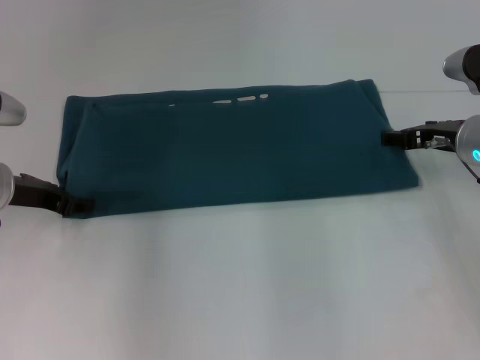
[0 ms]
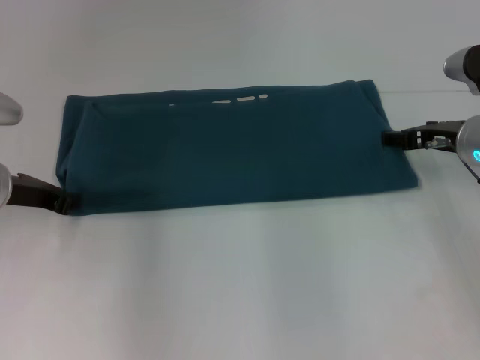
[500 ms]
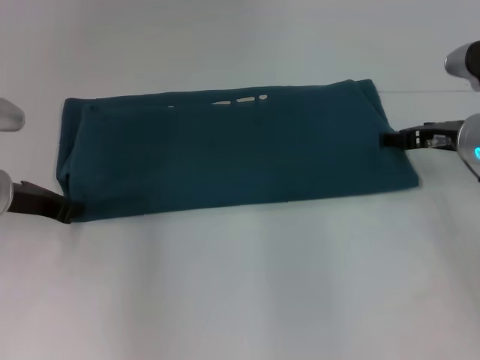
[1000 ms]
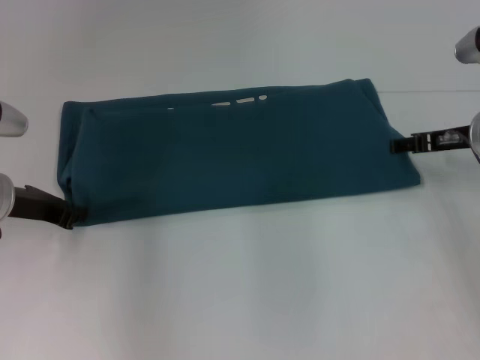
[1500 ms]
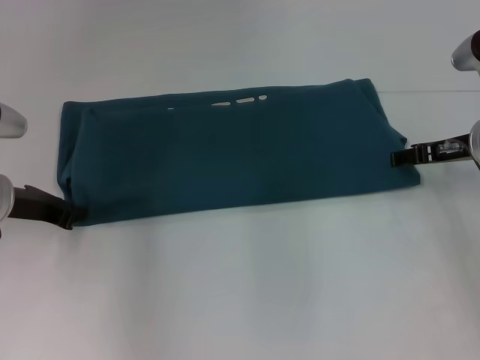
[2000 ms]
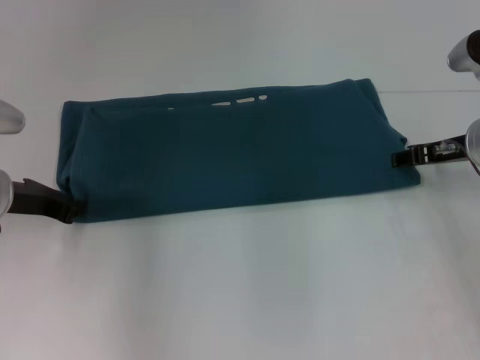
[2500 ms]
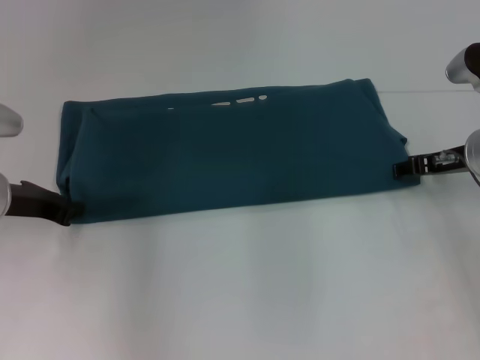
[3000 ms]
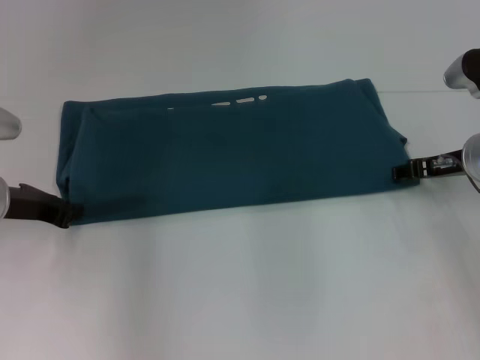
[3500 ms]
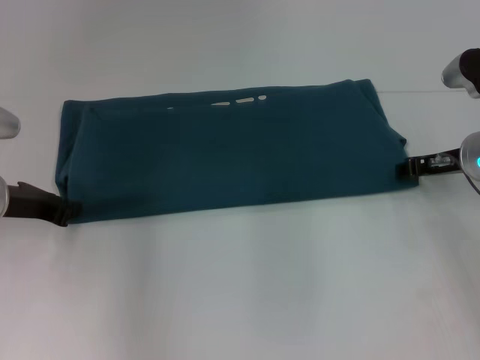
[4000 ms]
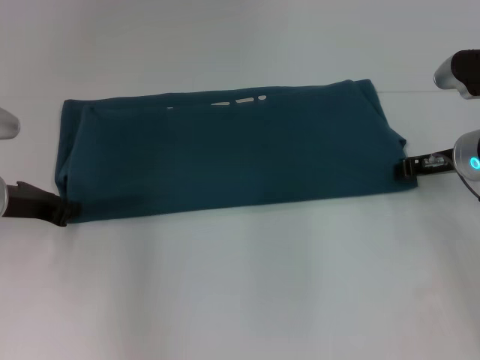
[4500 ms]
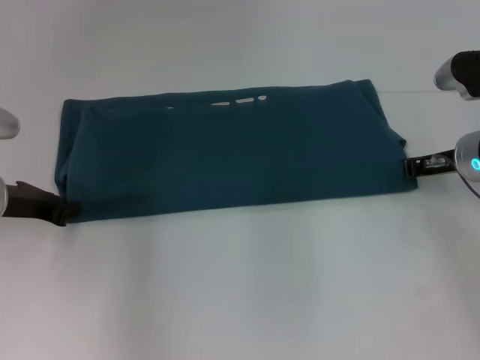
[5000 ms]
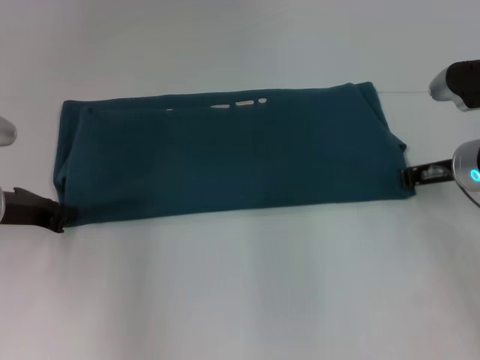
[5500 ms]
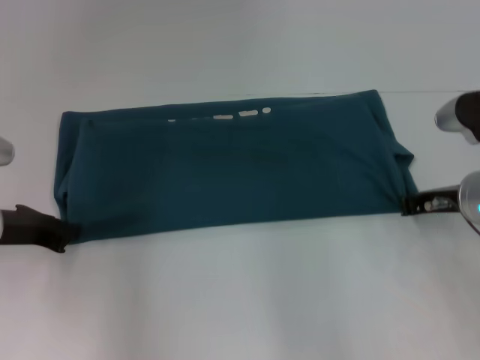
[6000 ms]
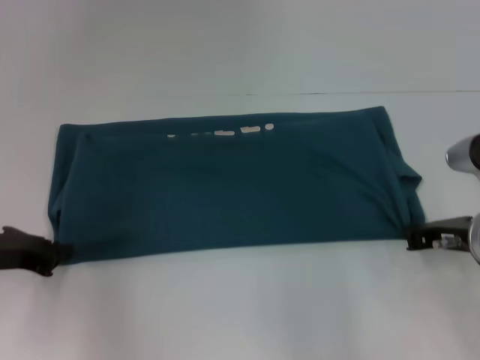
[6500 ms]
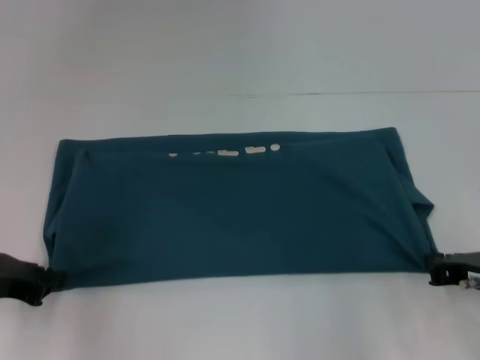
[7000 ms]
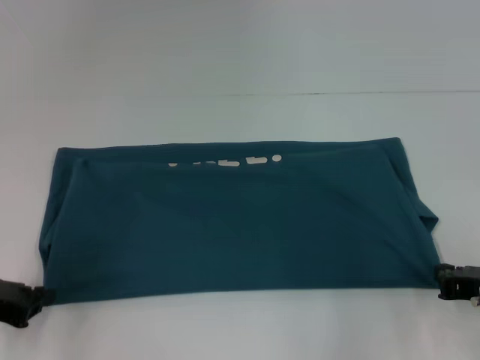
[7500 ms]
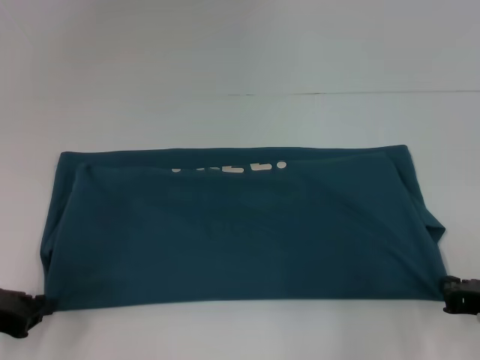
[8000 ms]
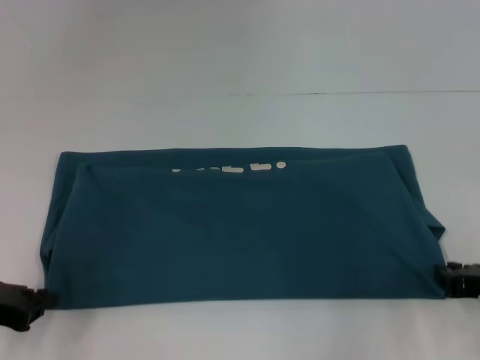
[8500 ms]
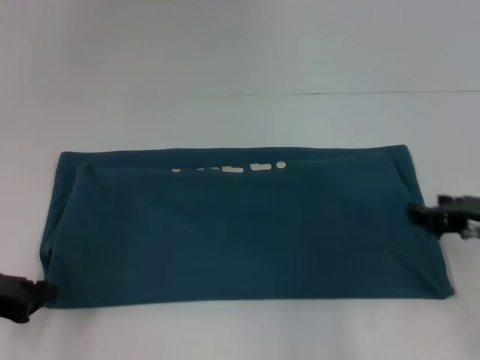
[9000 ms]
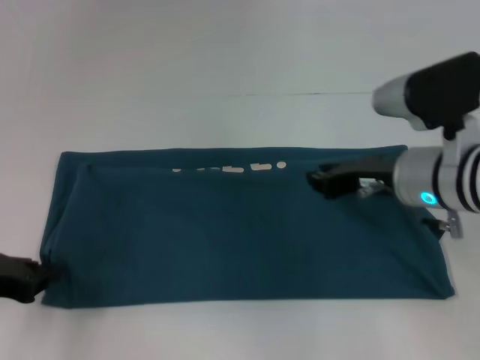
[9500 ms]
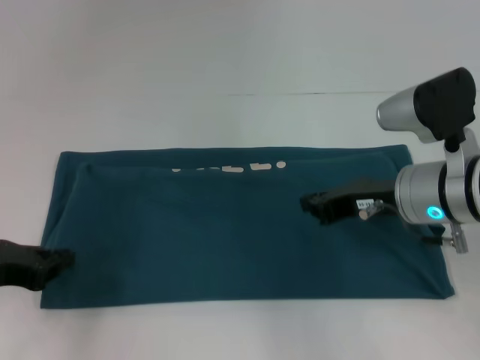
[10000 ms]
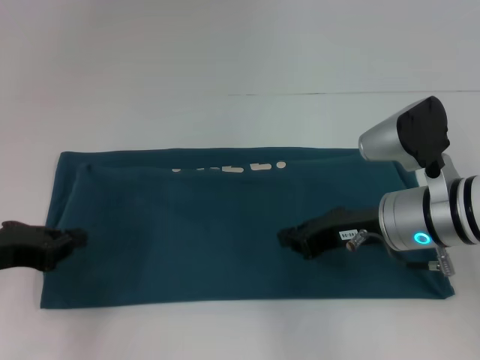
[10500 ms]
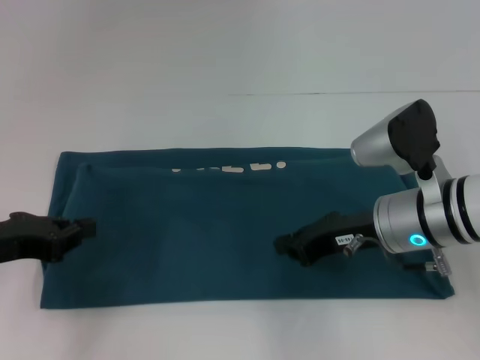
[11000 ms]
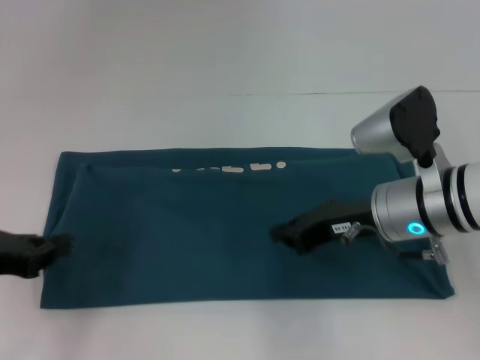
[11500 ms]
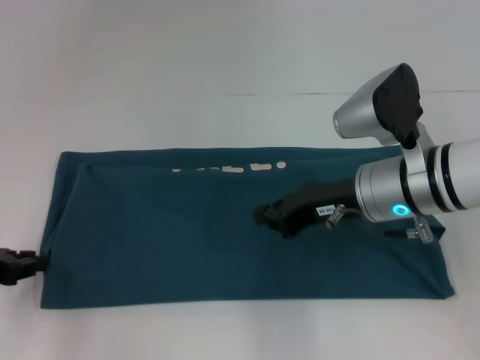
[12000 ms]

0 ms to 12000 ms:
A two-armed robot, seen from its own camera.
Step, 0 ms to 8500 ms: Pull the clothes with your left hand.
Step, 0 ms to 8500 ms: Pull the clothes with your right hand.
0 ms to 2000 ms: The left gripper closes its fingers.
2000 ms to 4000 ms: The grippers move only a little.
4000 ms to 6000 ms: The right gripper ends up some 5 cm from where it was, and closes up.
6000 ms to 8000 ms: The grippers both shift backward by roughly 10 cm.
8000 ms to 10000 ms: The right gripper shifts about 15 cm forward and to the left, and opens, then closes once more.
10000 ms to 12000 ms: The grippers stay close to where they were, moving slightly.

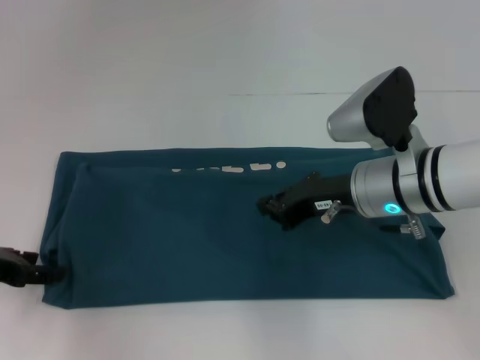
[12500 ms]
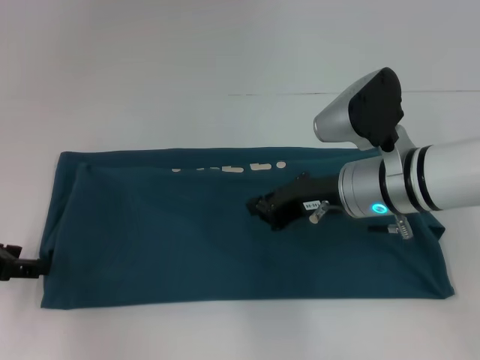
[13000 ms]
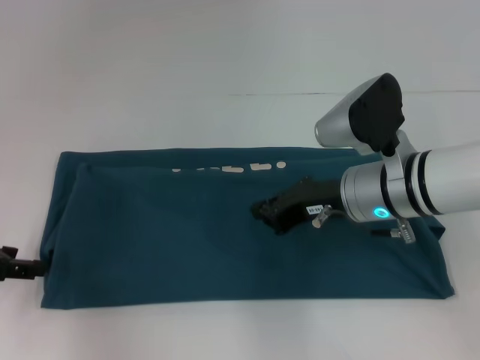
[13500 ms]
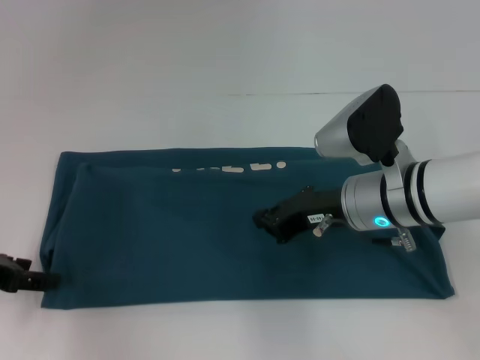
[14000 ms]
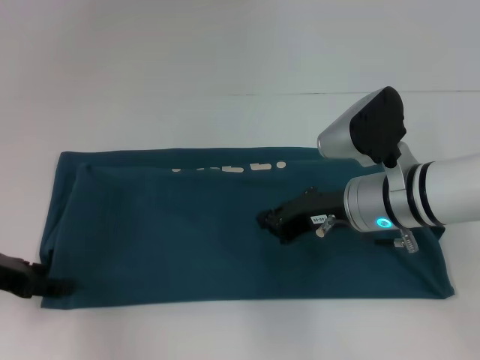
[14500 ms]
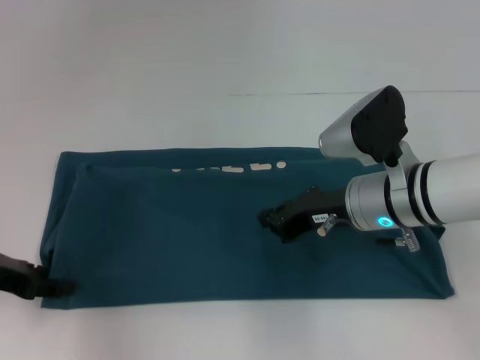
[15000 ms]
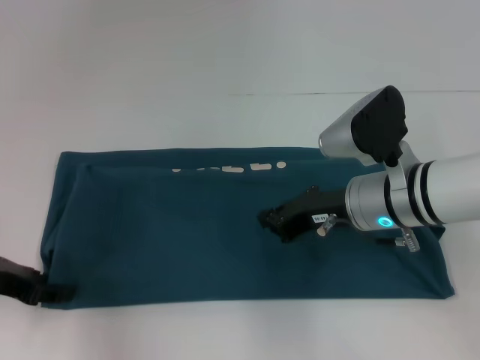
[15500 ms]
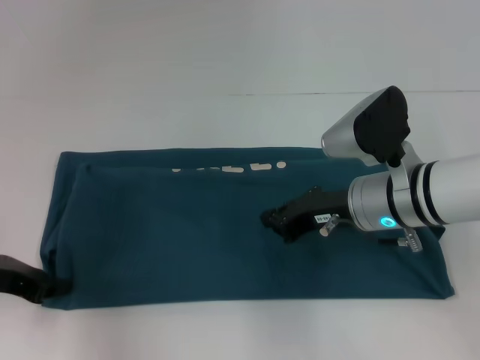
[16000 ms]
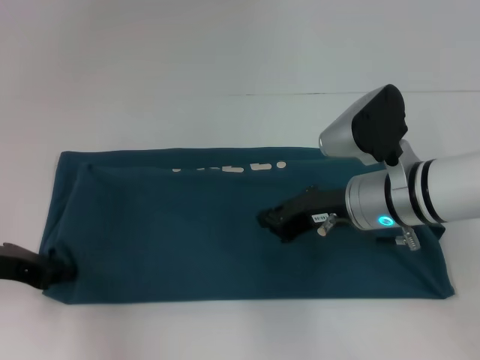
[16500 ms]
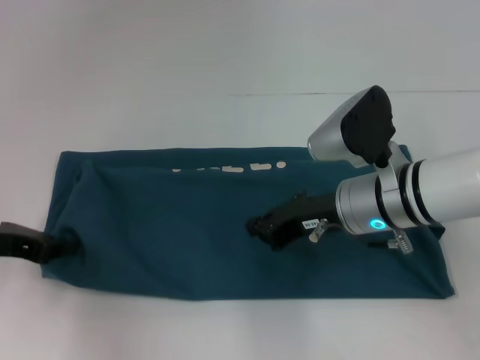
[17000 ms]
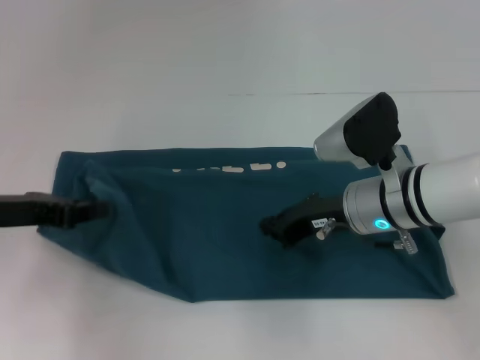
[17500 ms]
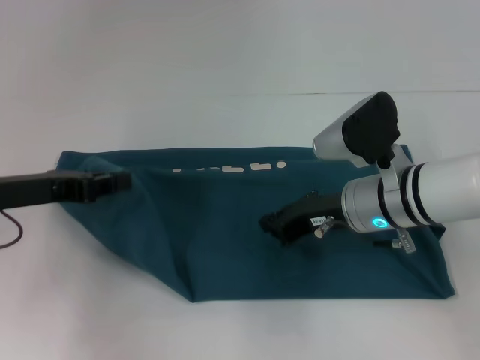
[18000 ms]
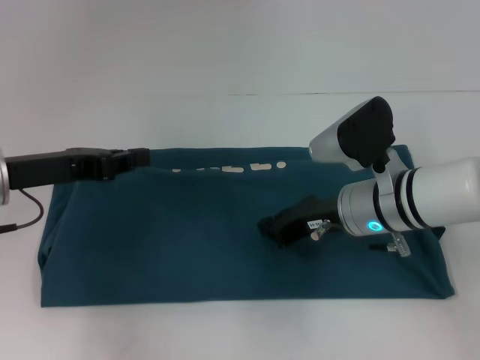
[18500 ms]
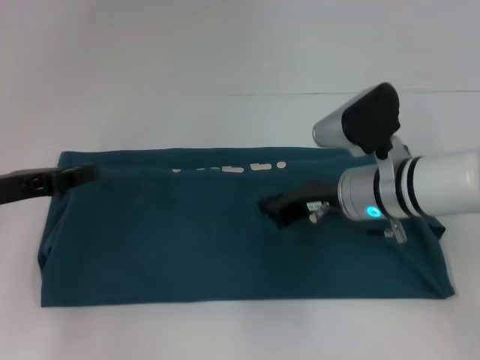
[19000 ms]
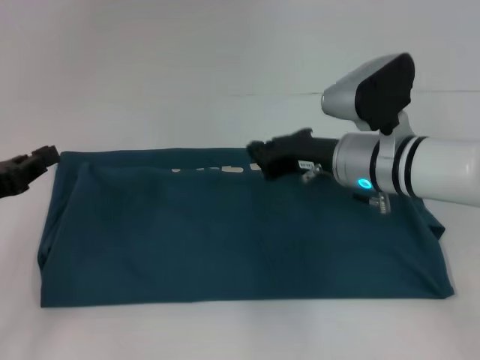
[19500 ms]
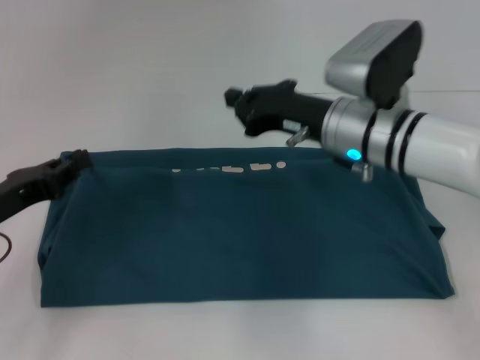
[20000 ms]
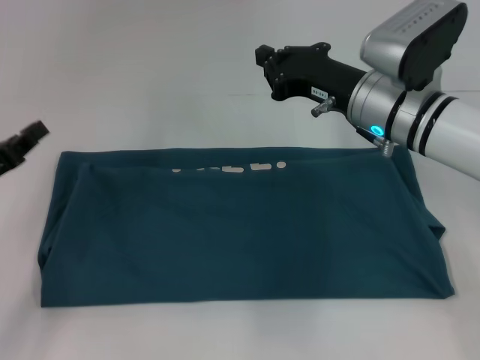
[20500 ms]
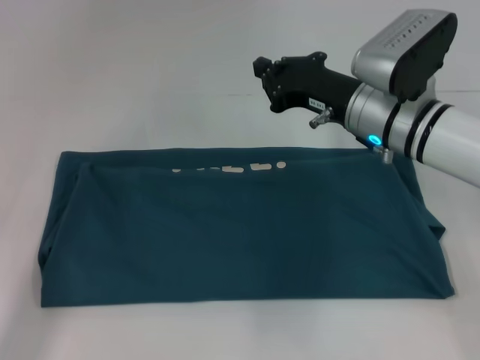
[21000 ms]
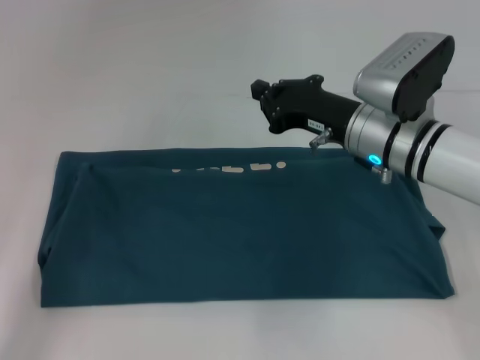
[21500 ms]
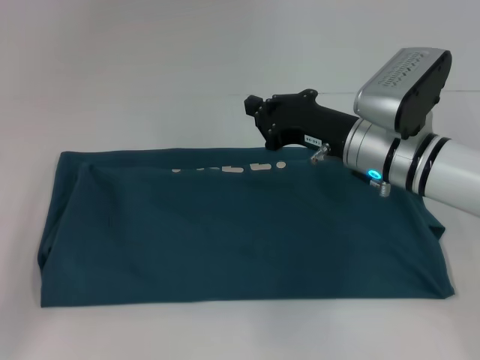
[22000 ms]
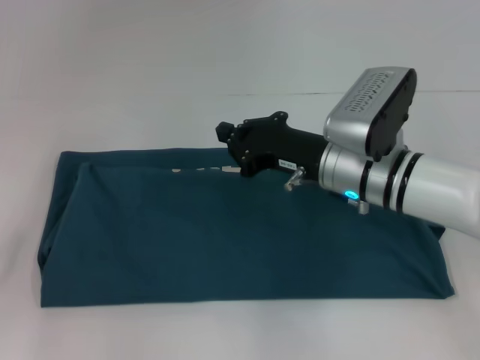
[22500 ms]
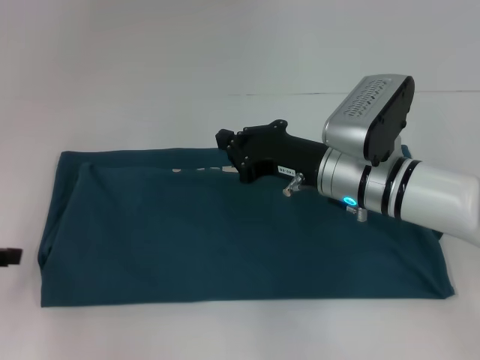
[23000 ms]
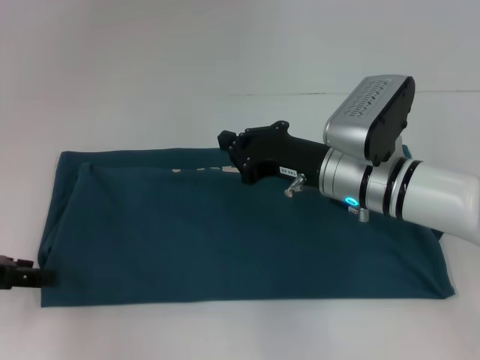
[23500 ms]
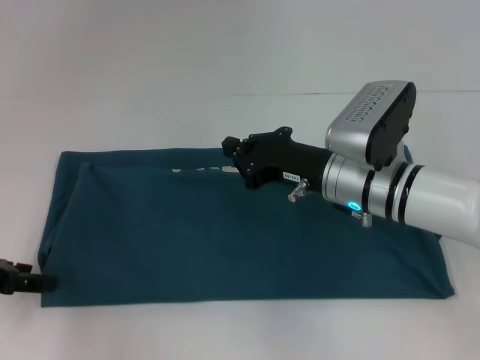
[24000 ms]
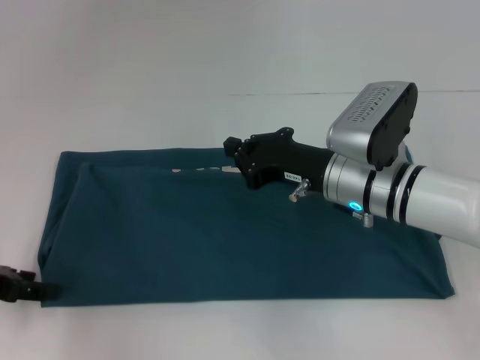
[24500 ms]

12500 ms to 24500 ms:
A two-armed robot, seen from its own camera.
12500 ms to 14500 ms: The grippers stay close to where they were, moving slightly.
14500 ms to 16500 ms: The left gripper closes up.
16500 ms to 18500 ms: The left gripper shifts by some 5 cm.
18500 ms to 20500 ms: The right gripper shifts approximately 5 cm upward. The left gripper moves downward and to the left, approximately 10 cm.
20500 ms to 22500 ms: The right gripper changes place by approximately 5 cm; the left gripper shifts roughly 10 cm to the left and upward.
22500 ms to 24500 ms: The left gripper heads to the right, covering some 5 cm, and opens its fingers.

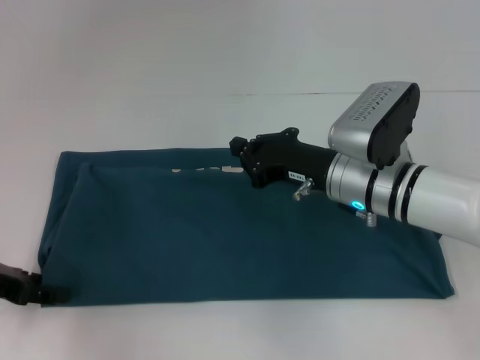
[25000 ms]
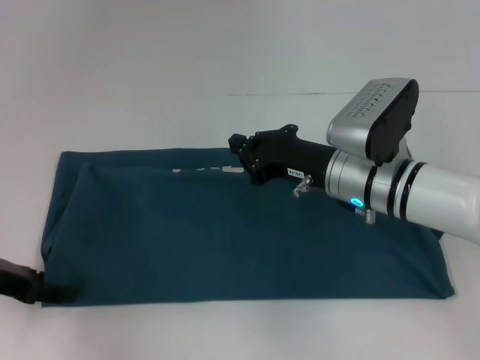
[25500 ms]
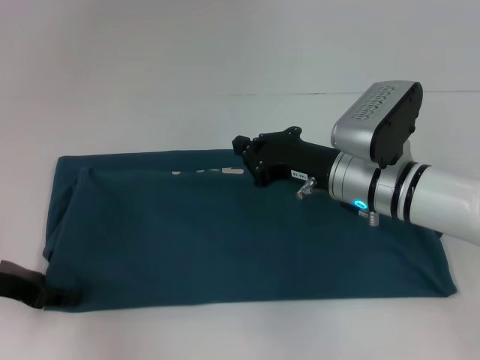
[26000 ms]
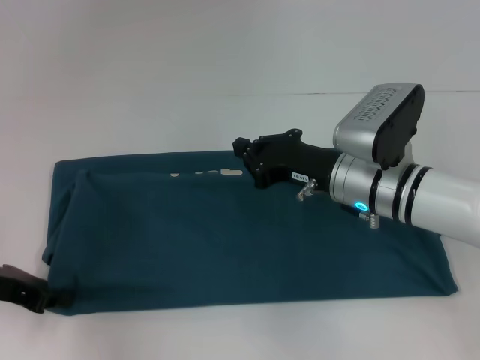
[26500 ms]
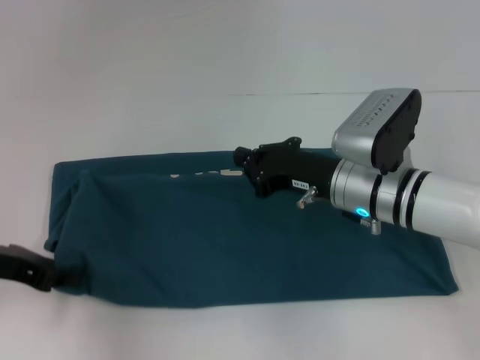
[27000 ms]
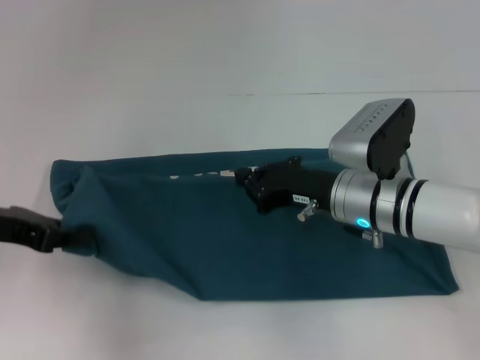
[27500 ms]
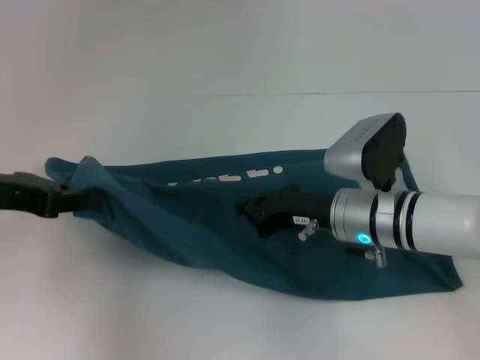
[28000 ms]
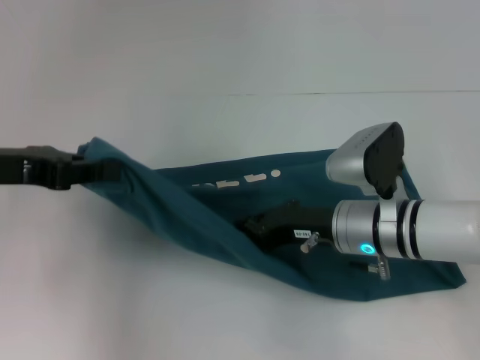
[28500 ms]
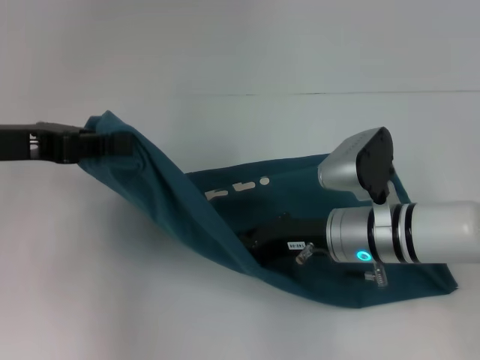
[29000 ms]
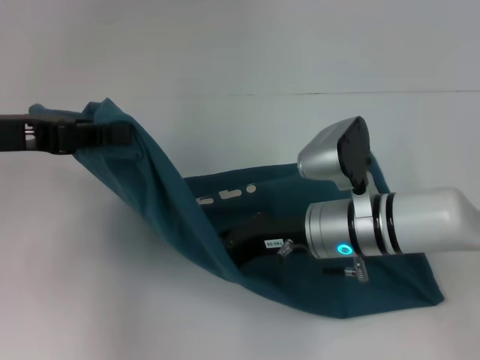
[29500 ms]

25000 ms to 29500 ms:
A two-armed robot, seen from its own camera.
25000 ms to 27000 ms: The left gripper closes its fingers.
27000 ms to 29500 ms: The left gripper is displaced upward by approximately 10 cm.
